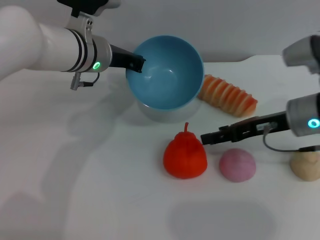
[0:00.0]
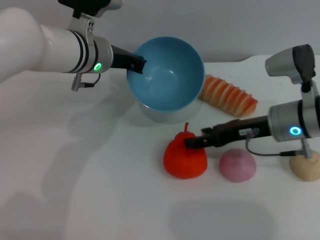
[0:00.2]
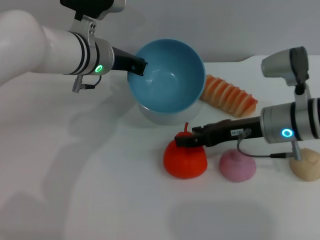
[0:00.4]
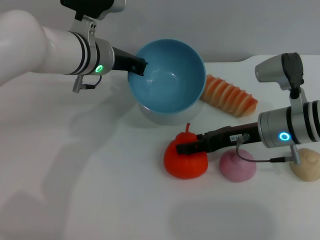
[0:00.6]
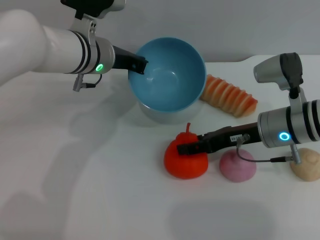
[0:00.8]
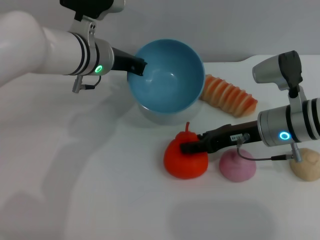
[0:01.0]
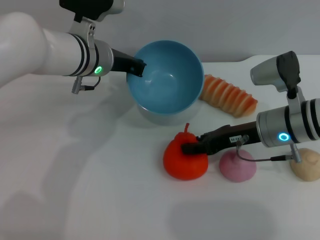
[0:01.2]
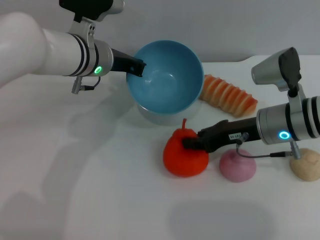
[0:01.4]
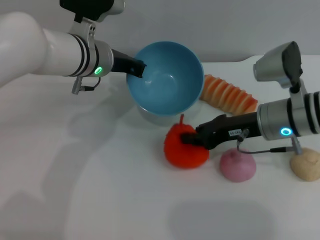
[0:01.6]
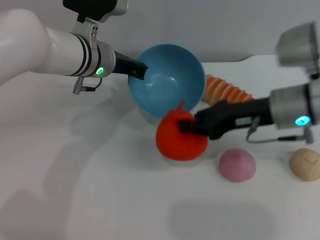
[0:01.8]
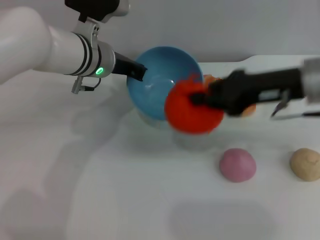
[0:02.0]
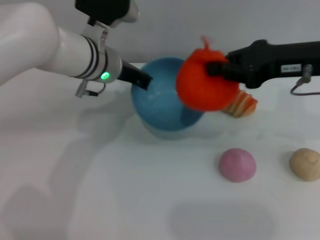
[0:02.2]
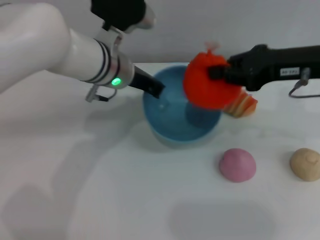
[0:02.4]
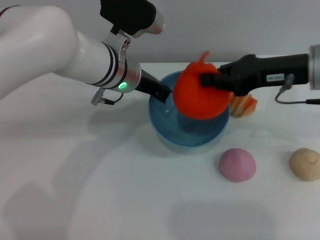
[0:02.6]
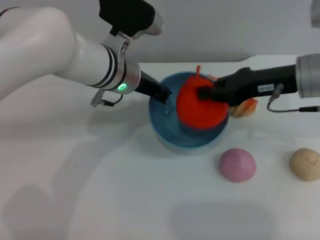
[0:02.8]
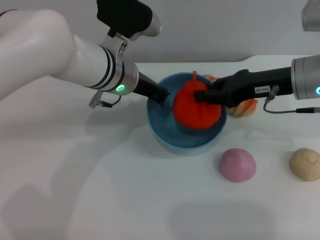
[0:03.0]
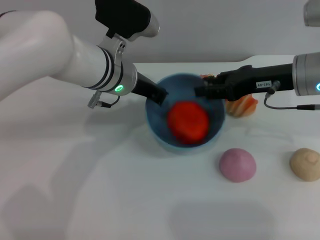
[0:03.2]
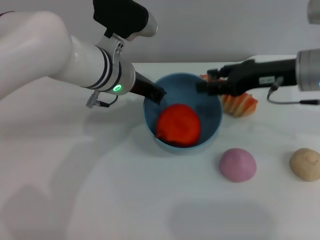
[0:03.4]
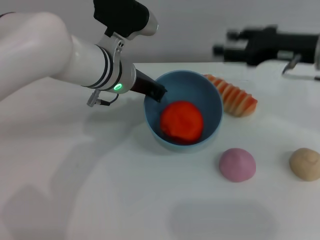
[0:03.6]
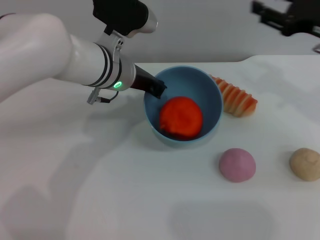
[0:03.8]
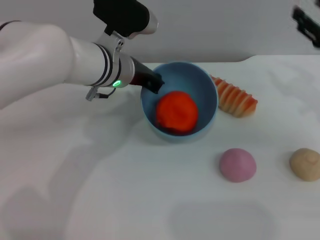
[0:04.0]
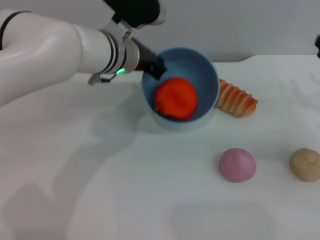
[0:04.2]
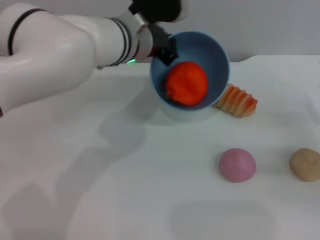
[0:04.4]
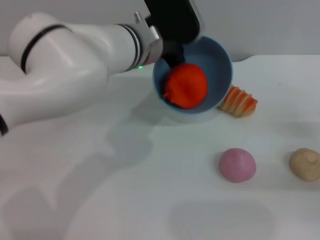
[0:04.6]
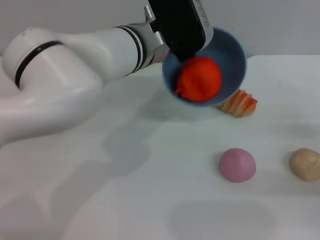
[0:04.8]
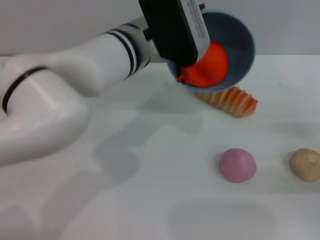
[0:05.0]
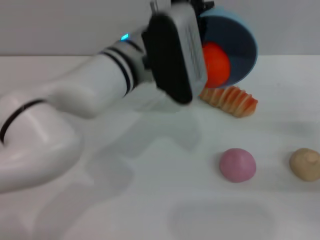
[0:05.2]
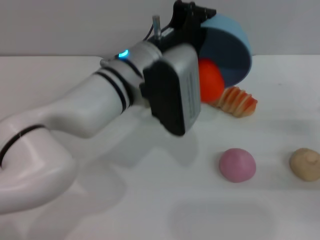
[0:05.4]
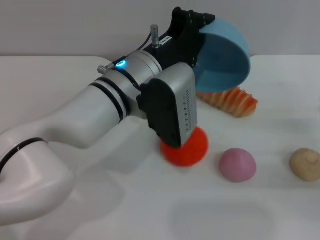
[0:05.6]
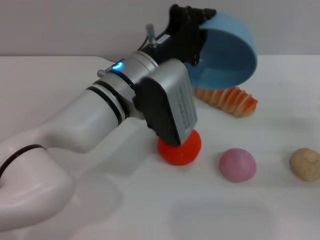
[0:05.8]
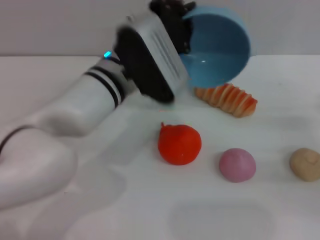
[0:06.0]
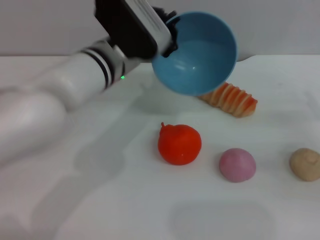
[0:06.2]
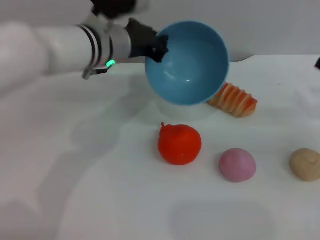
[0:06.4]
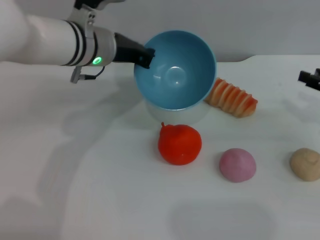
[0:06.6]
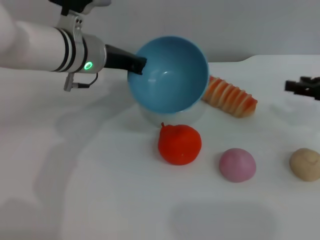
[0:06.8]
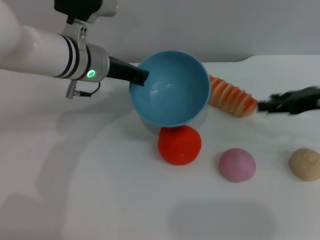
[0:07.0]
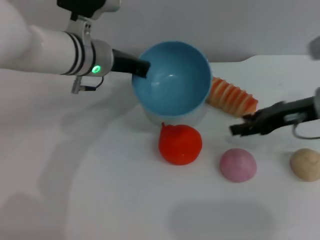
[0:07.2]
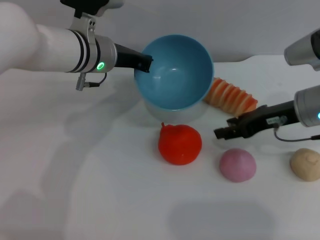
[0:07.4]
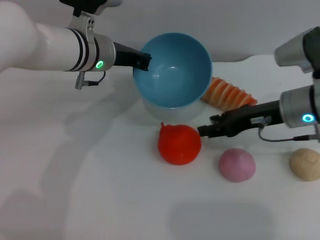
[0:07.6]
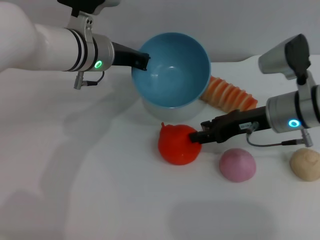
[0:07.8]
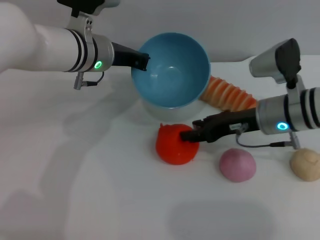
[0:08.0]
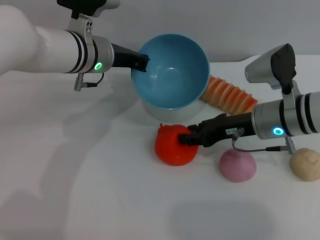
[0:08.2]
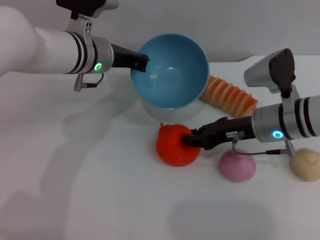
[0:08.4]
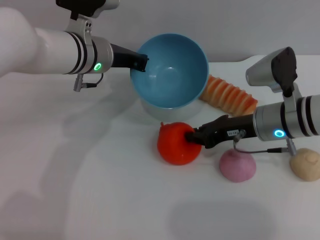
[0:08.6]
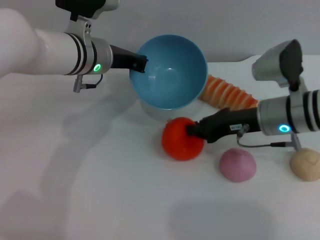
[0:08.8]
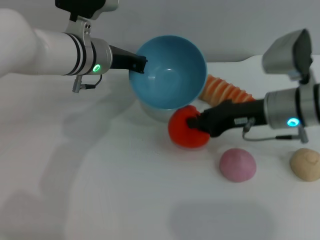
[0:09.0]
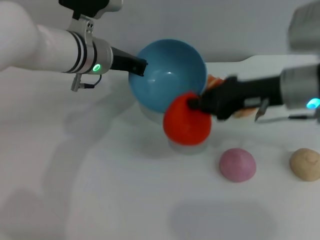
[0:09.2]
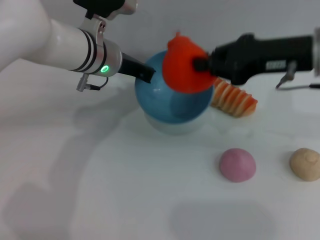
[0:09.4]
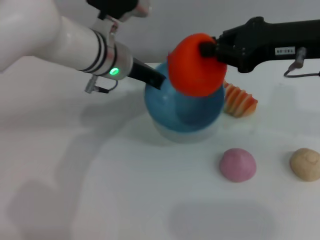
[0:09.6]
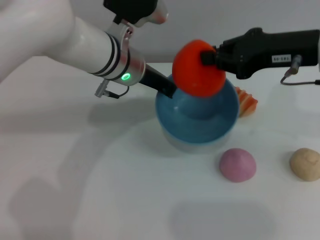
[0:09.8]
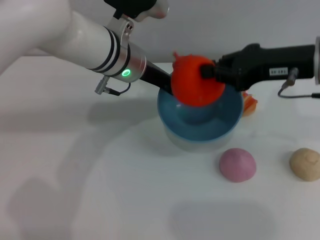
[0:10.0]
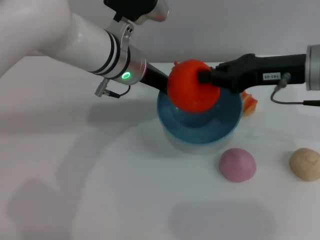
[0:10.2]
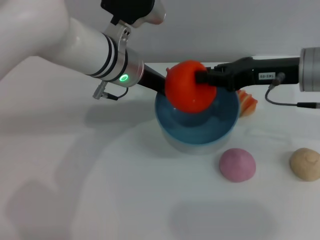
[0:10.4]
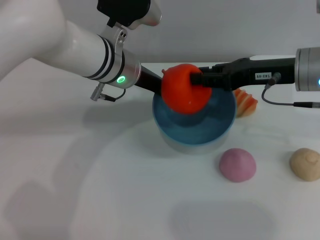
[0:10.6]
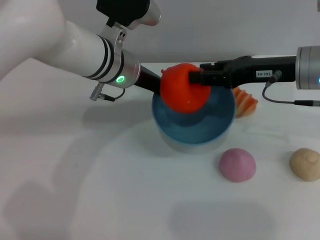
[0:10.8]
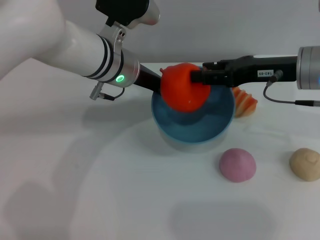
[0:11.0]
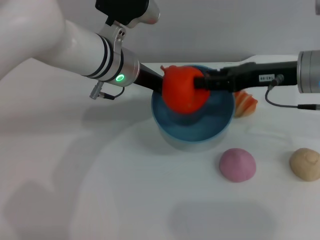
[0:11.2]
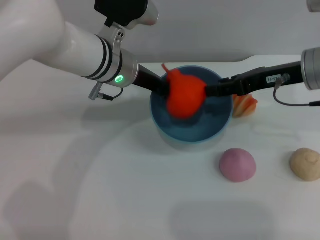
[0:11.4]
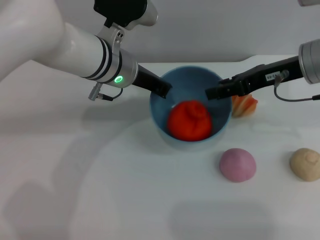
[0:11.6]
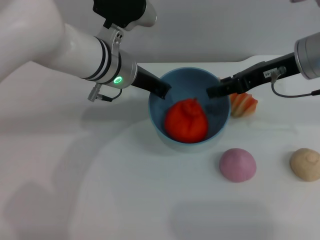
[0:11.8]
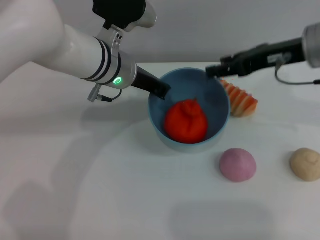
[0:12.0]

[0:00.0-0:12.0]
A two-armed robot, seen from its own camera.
Task of the whole recording: put the orange into the blue bowl and pour it out repeatedly.
Step, 0:02.2 to 0:03.4: Place the orange into the bowl.
Step, 0:03.8 to 0:05.8: Pour the orange out of the bowl.
Step, 0:06.0 to 0:09.0: Pick up the orange with the right gripper.
Step, 0:09.2 to 0:11.6: Place the orange into the bowl.
0:00.0 to 0:01.6: The right gripper closes its fingers.
0:01.6 to 0:03.0: The right gripper moves upward, approximately 5 cm.
0:03.0 to 0:04.4: The right gripper moves to the right, downward and backward, roughly 20 cm, and opens up.
0:04.4 to 0:06.0: The left gripper shifts some 5 cm backward.
0:06.0 to 0:07.6: The left gripper shifts approximately 10 cm forward and to the left. Meanwhile the right gripper heads to the left, forward and upward, covering approximately 20 cm.
0:07.6 to 0:09.0: The right gripper closes.
0:09.0 to 0:10.4: The right gripper is displaced upward by some 5 cm; the left gripper changes place by roughly 5 cm.
0:10.4 to 0:12.0: The right gripper opens.

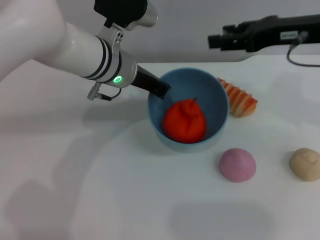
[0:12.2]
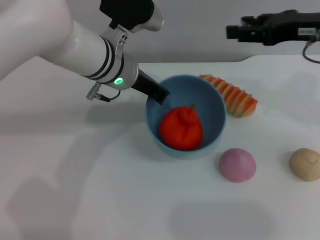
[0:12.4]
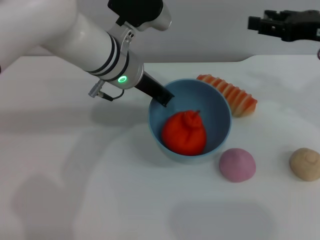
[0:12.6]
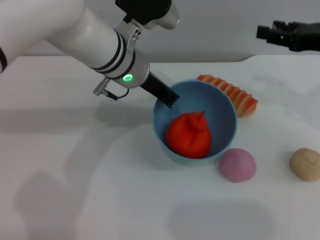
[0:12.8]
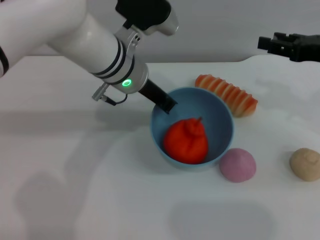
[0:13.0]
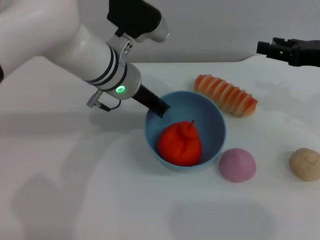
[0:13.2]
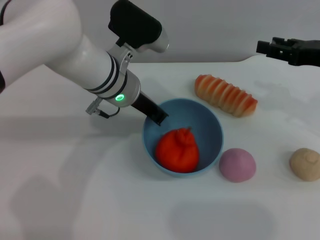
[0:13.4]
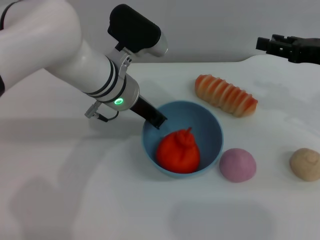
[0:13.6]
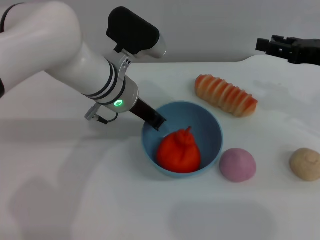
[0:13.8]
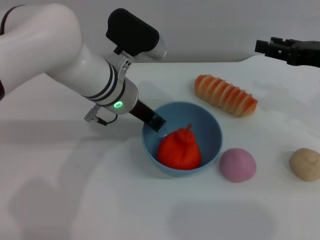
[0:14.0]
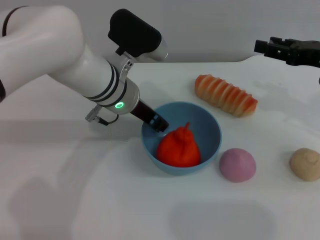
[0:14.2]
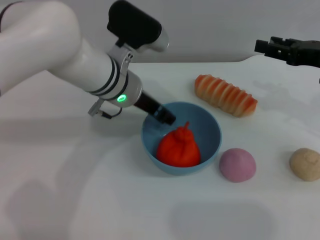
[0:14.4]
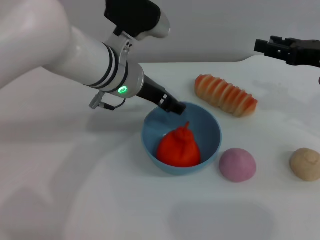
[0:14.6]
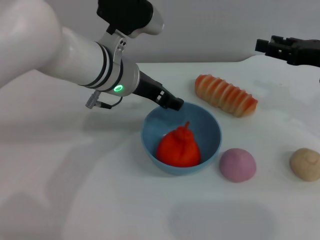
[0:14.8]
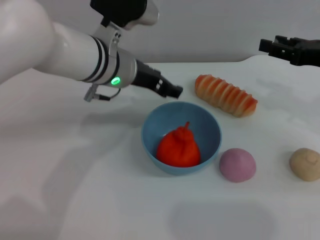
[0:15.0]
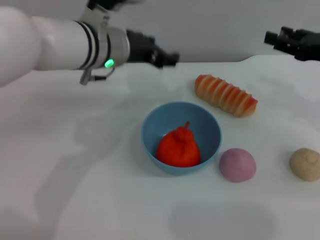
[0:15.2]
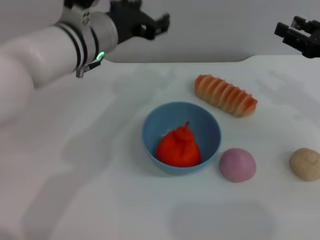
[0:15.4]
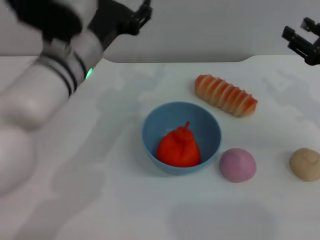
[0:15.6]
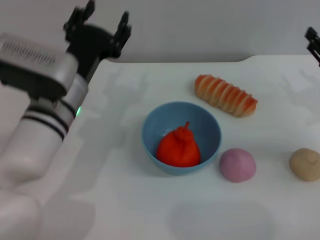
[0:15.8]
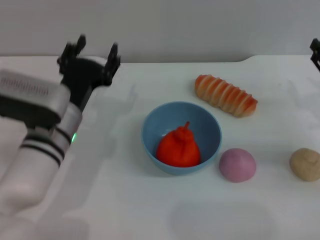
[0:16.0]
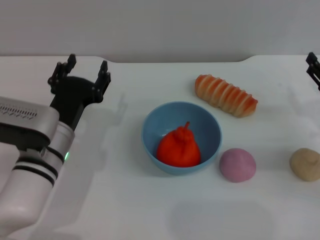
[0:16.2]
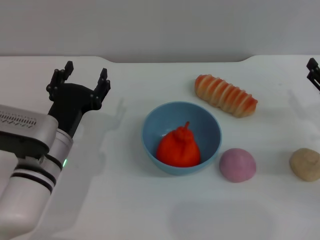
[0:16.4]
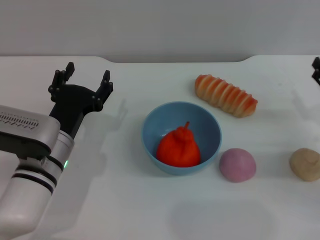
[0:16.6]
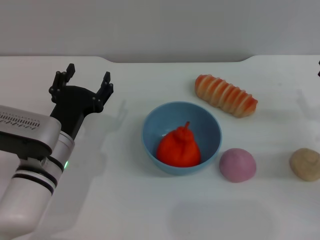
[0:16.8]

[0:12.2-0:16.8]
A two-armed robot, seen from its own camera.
Task of the whole recording: put the orange into the blue bowl and pour it out repeatedly.
Step, 0:12.2 to 0:14.8: Place the bowl on the table.
0:12.2 to 0:13.8: The right gripper travels to the right and downward by approximately 10 cm.
0:13.8 to 0:15.2: The left gripper is displaced upward by approximately 5 cm, and opens its fingers.
0:15.2 to 0:16.8: The right gripper goes about 15 cm downward and backward. Meanwhile the left gripper goes about 20 cm downward, backward and to the left.
